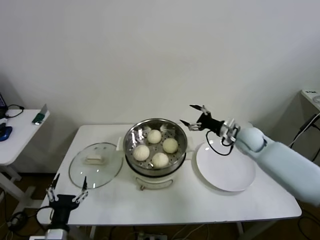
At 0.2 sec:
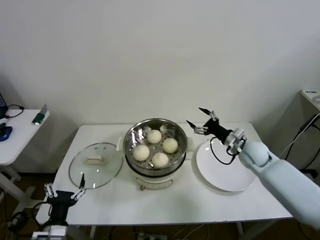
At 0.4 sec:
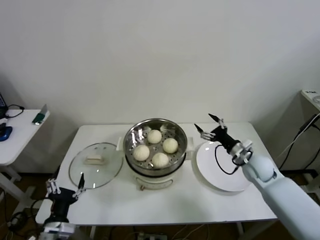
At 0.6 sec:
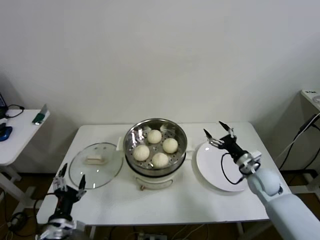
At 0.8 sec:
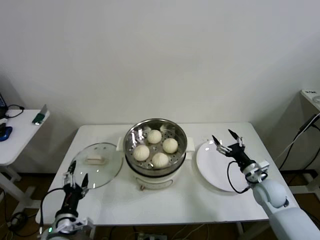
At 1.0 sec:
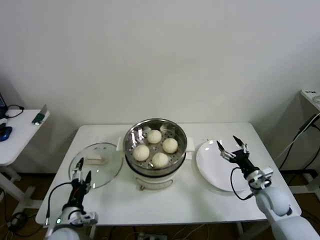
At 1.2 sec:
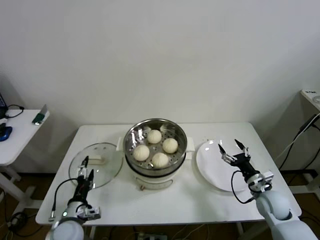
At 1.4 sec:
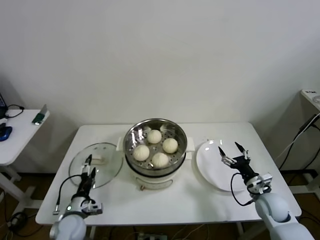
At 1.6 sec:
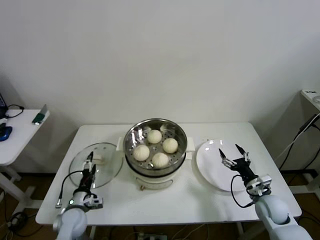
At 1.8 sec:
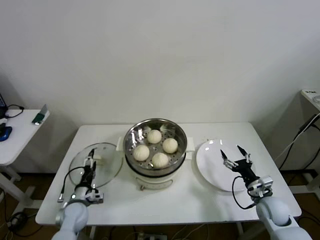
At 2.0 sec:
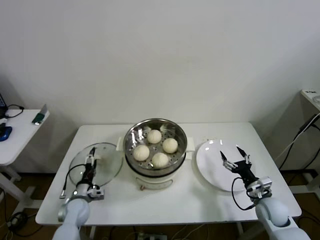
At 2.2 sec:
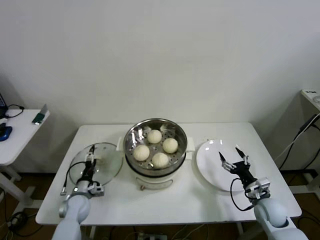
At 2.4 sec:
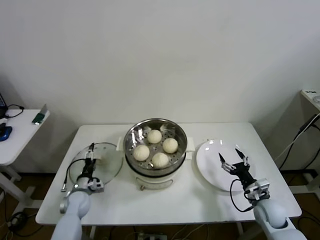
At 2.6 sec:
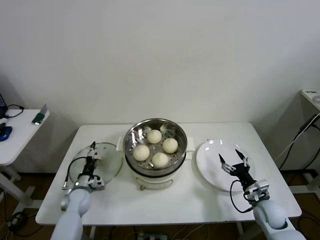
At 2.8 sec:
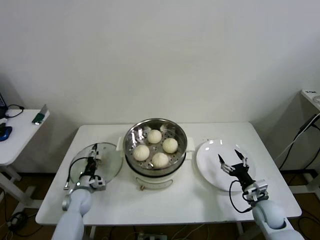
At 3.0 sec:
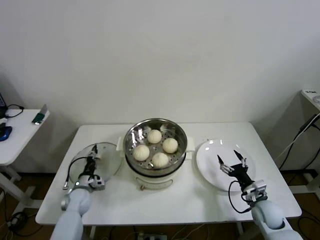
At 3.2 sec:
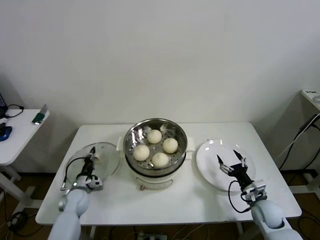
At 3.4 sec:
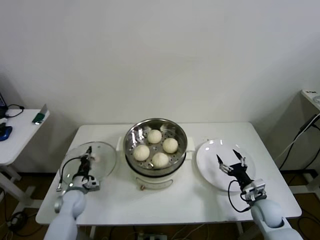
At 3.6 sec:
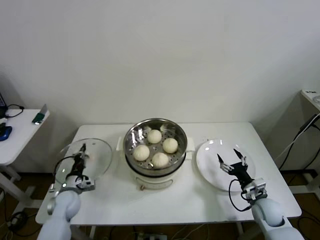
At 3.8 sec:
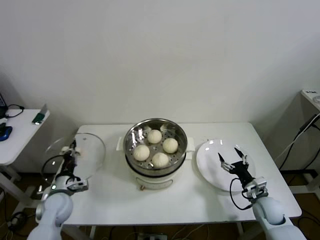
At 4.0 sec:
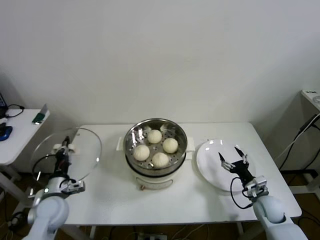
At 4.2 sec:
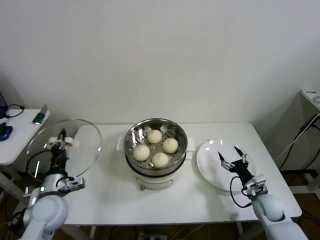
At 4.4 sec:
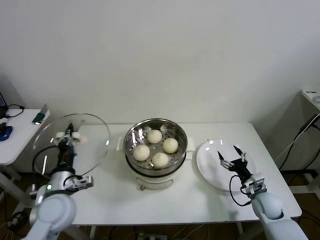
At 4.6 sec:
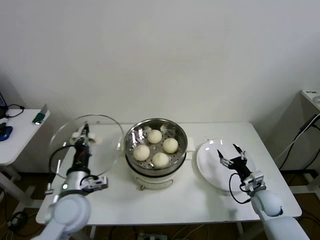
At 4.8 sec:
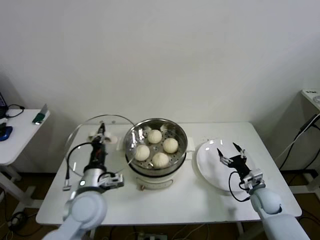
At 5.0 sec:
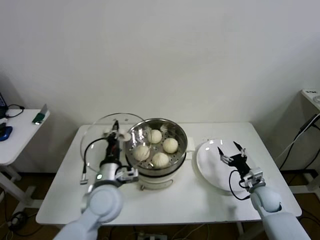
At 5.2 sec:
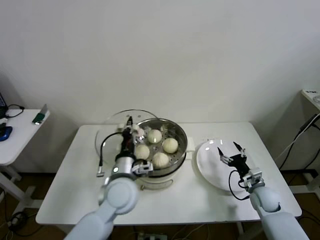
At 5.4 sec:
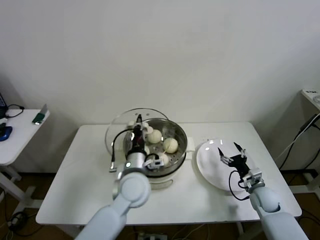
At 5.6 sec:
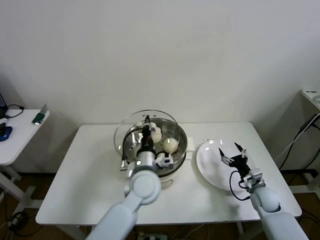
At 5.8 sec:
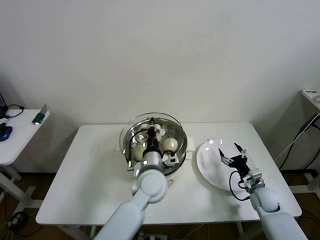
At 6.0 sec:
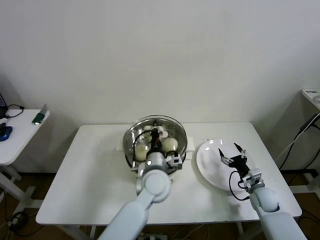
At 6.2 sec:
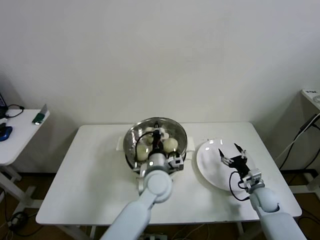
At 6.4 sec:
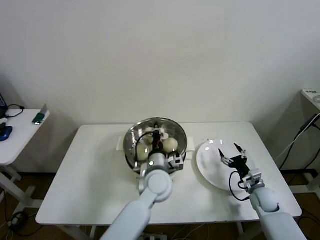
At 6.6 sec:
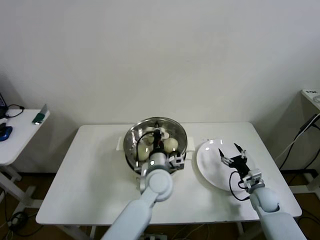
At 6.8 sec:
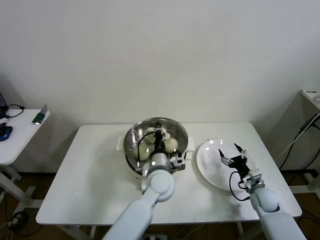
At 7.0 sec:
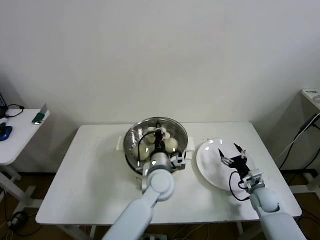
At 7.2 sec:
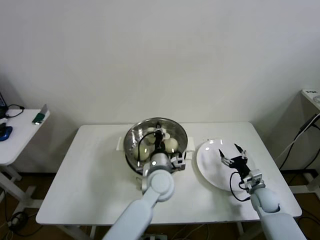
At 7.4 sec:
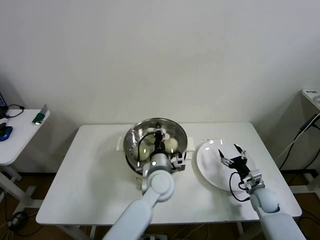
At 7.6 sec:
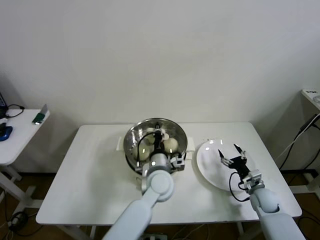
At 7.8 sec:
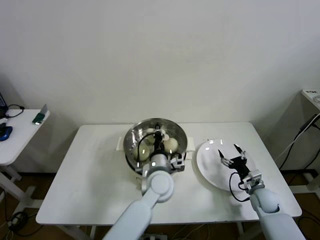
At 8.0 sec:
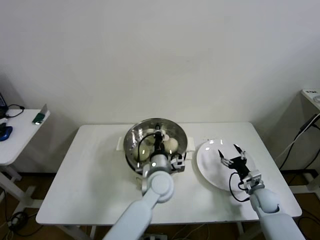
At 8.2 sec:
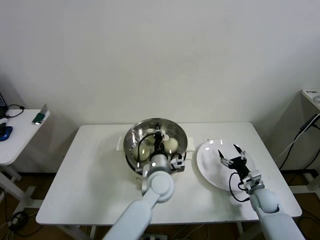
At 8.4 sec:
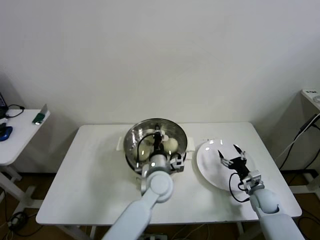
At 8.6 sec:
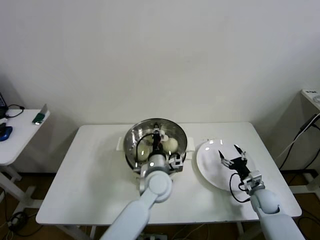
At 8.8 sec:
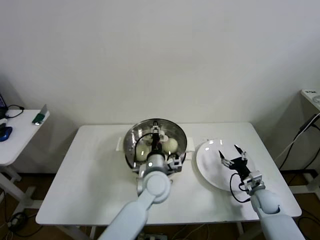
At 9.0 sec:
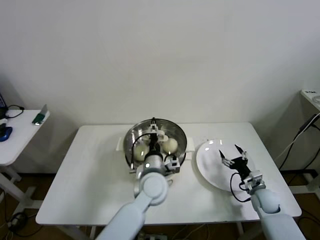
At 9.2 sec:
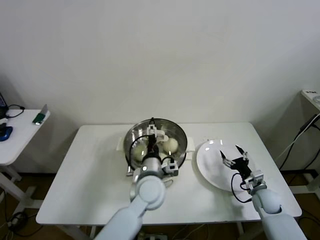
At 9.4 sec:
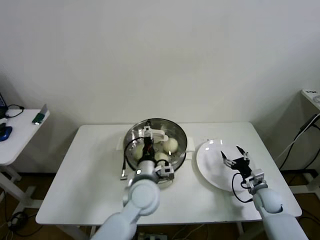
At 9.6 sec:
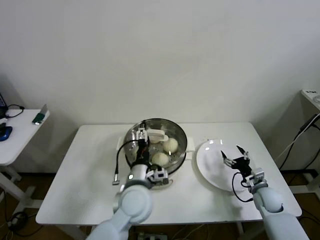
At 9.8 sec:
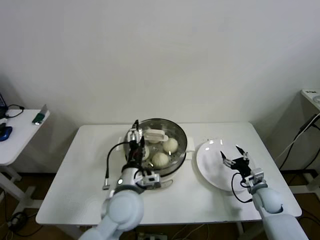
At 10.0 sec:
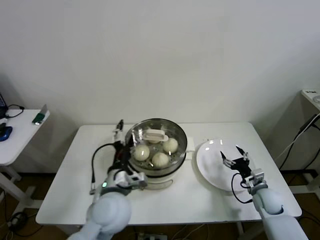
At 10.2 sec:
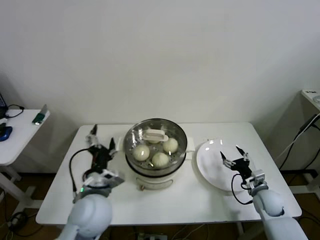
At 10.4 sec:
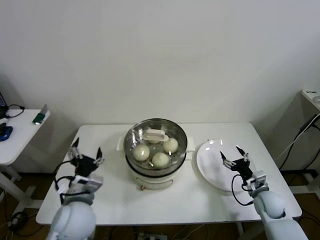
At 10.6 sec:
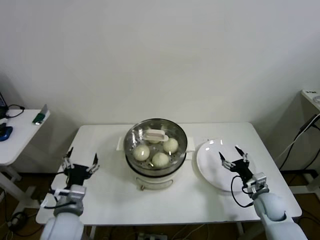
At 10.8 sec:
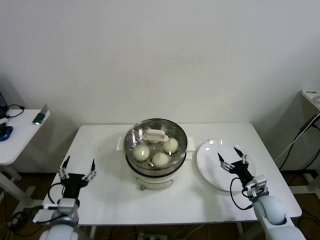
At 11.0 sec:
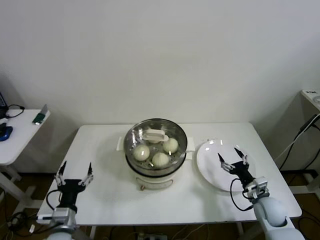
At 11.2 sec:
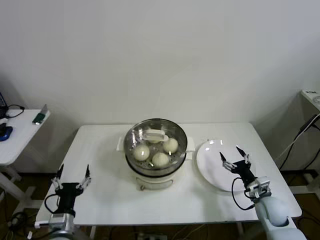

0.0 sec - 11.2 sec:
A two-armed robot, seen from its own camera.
Step, 0.0 sec - 3.2 sec: Grasp the pot lid with left gripper.
Step, 3.4 sec - 9.8 sec: Place the pot lid on the steamer with left gripper.
0.0 sec - 1.6 sec: The right gripper heads backward and downward, covering about 25 cm. The left gripper shifts some 15 cm forward and downward.
1.6 sec - 3.2 sec: The left gripper heads forward, covering about 10 cm, and closes up.
3.2 sec - 4.8 sec: The left gripper is displaced upward, to the right and backward by some 25 cm.
4.8 sec - 6.4 sec: The left gripper is displaced to the right and forward by roughly 20 cm.
6.4 sec - 8.0 sec: Both grippers stay about where they are.
8.0 sec - 9.6 sec: The left gripper moves backward and to the left, some 10 cm, and opens.
9.6 sec - 11.2 sec: The right gripper changes place by some 5 cm. Meanwhile the left gripper shifts approximately 30 cm to the left, backward and downward.

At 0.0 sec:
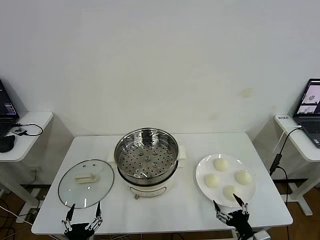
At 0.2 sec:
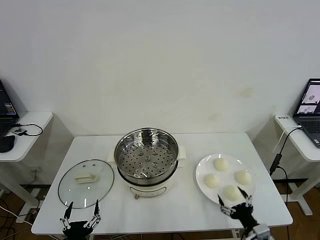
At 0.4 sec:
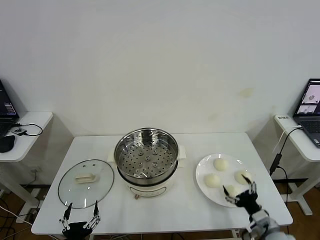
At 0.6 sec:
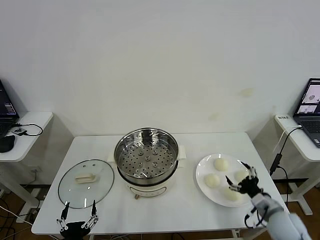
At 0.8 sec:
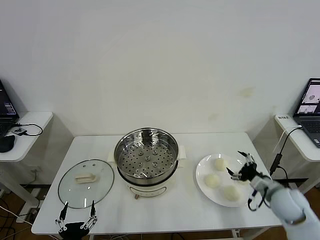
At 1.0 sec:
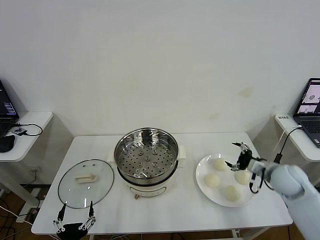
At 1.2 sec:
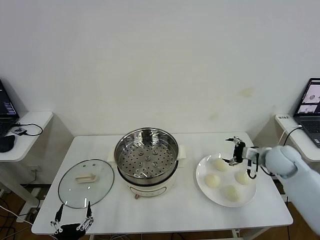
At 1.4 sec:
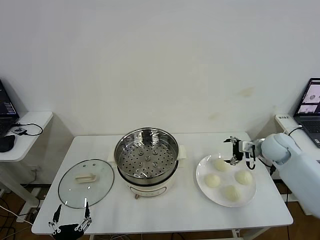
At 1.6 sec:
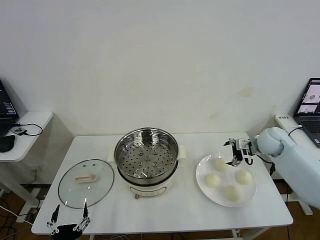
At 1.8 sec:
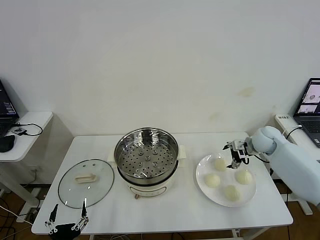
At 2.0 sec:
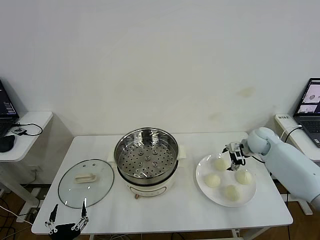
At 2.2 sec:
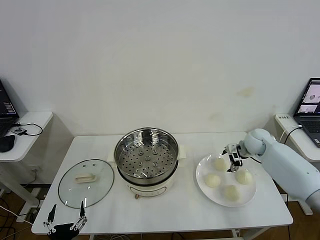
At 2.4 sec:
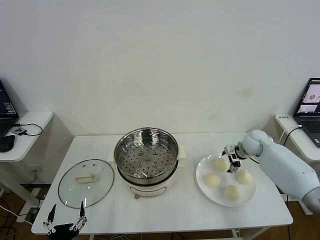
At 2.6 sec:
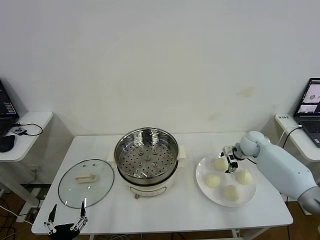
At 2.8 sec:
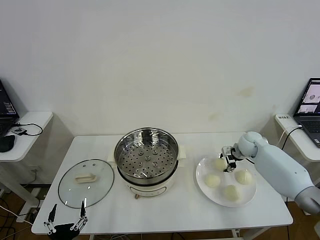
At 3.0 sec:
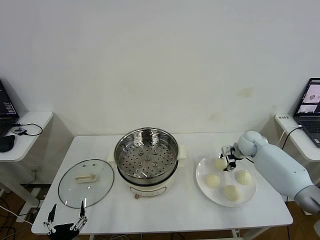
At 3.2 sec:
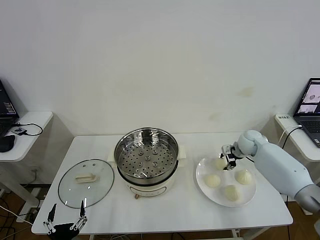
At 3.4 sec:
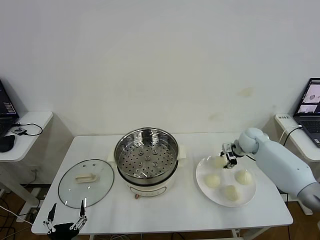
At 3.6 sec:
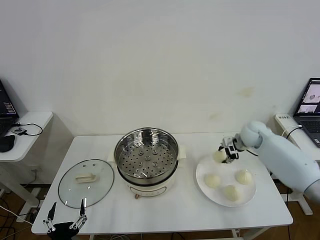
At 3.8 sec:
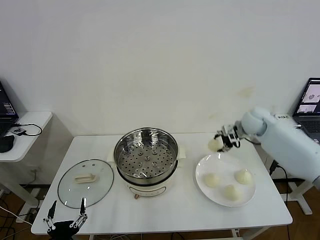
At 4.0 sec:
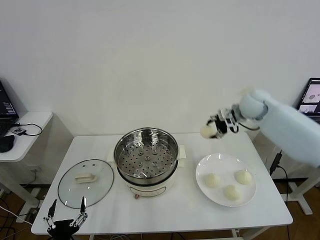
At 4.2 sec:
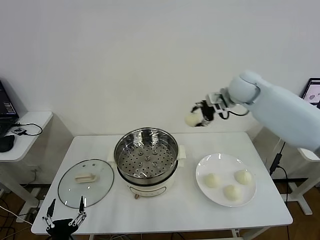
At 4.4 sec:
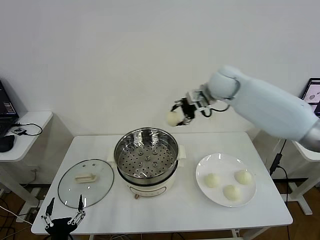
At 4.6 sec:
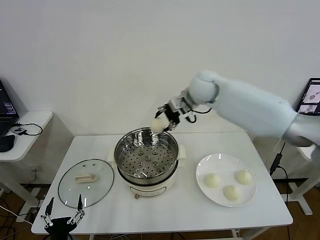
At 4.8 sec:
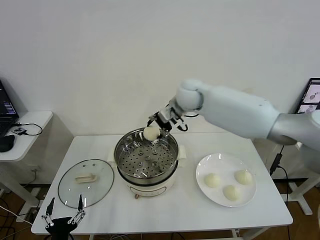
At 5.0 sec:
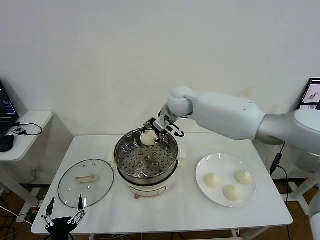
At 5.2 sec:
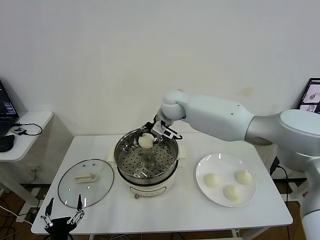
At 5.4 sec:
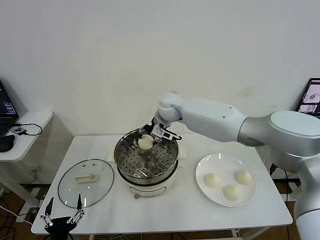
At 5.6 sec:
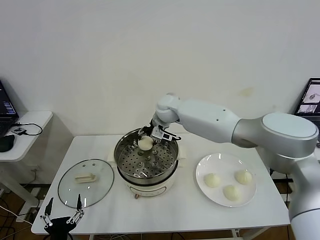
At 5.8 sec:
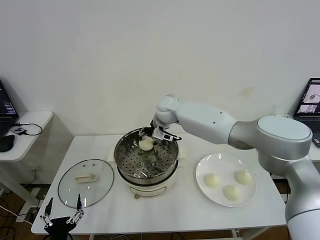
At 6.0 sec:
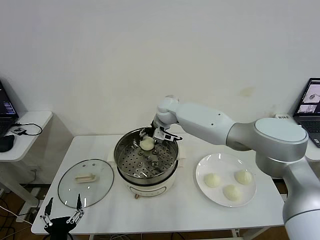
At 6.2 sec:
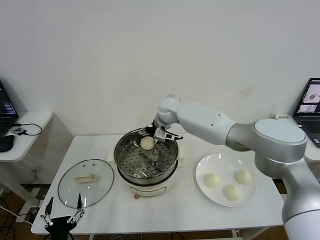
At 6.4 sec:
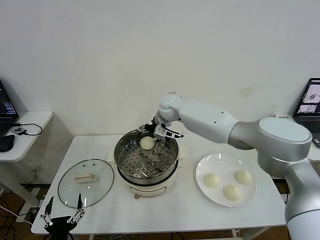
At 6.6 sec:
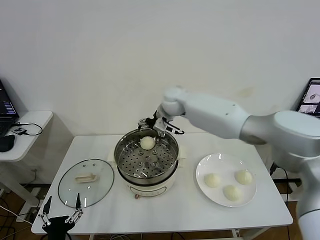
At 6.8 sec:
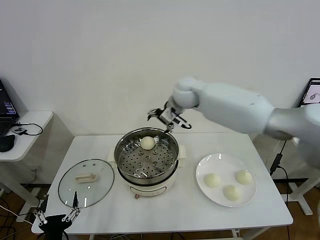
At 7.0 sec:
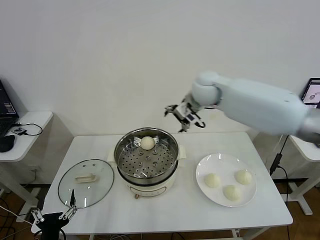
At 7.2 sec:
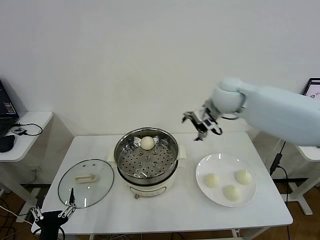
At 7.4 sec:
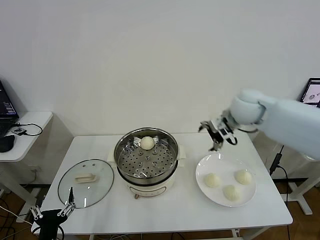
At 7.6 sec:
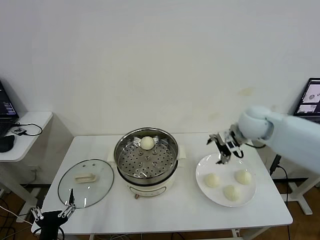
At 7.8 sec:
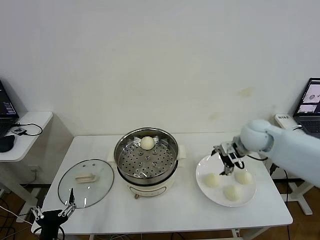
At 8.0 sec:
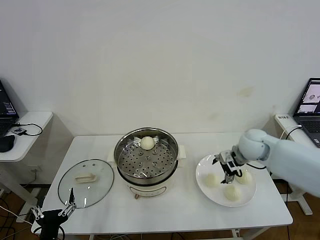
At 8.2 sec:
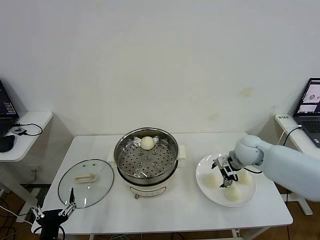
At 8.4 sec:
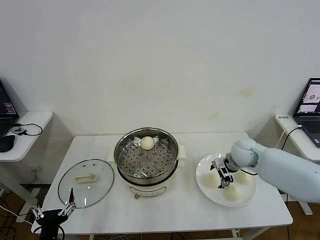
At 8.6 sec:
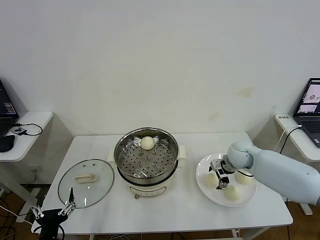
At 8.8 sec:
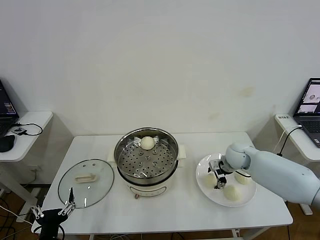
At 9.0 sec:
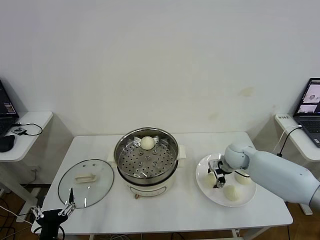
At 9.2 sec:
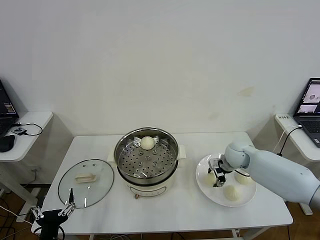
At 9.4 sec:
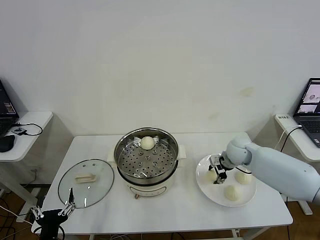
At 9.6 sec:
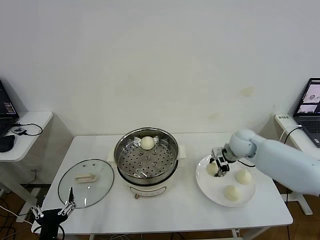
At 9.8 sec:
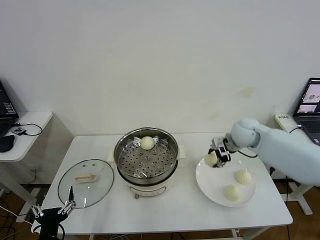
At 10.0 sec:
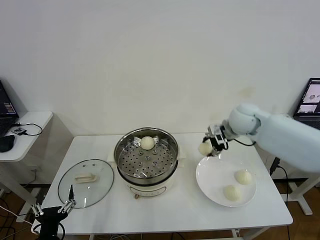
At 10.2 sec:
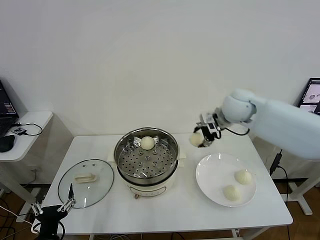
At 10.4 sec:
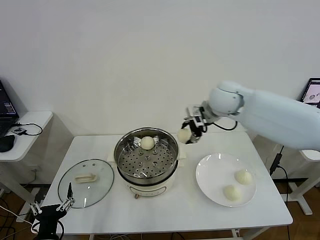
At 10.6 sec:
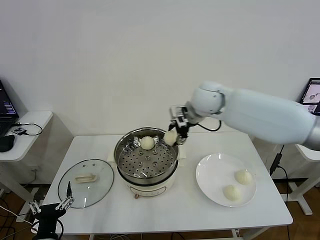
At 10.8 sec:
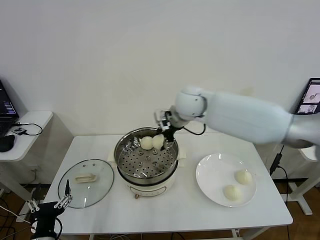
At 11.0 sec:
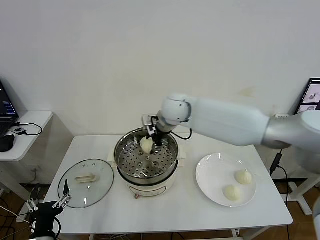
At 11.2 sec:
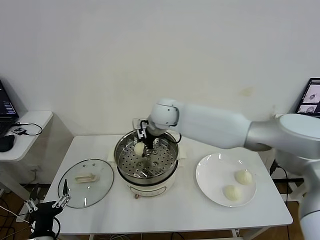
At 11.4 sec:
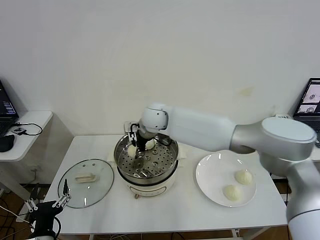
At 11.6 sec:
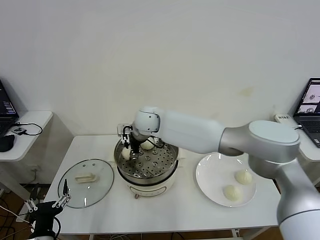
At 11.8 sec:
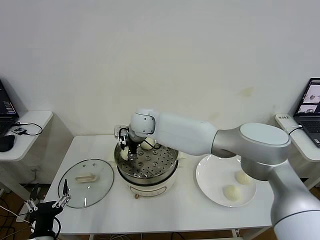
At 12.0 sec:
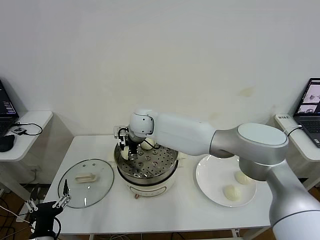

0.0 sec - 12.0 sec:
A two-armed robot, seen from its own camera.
Step, 0.0 sec - 3.0 sec: Grasp the baozi in the plate with right gripper.
Step, 3.4 sec - 6.2 sec: Place the baozi on the steamer with right gripper.
Step, 6.4 sec - 9.2 sec: Grasp the baozi in the plate with right gripper.
1.6 sec - 3.0 sec: The right gripper heads downward, covering approximately 5 cm, and closes up.
3.0 sec - 4.4 sec: The right gripper goes approximately 30 cm upward and to the left.
4.4 sec - 6.0 sec: The right gripper heads to the left and downward, covering some 20 cm.
6.0 sec - 7.6 sec: The right gripper goes some 30 cm to the right and backward, and opens up.
7.6 sec - 9.0 sec: The right gripper heads downward, covering roughly 15 cm, and closes.
9.0 sec - 10.4 sec: The right gripper goes approximately 25 cm upward and to the left.
10.4 sec - 12.0 sec: The right gripper goes roughly 25 cm to the left and downward.
